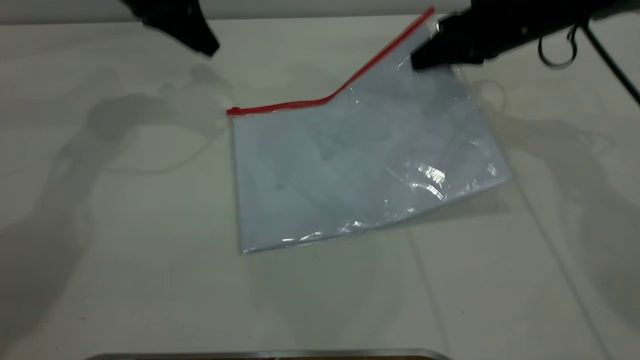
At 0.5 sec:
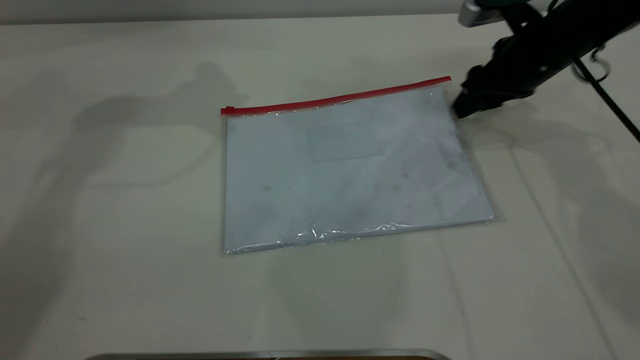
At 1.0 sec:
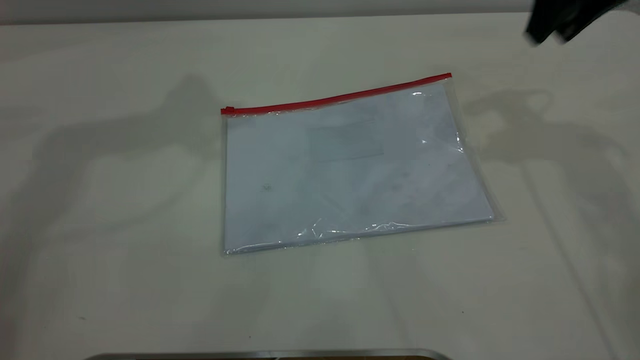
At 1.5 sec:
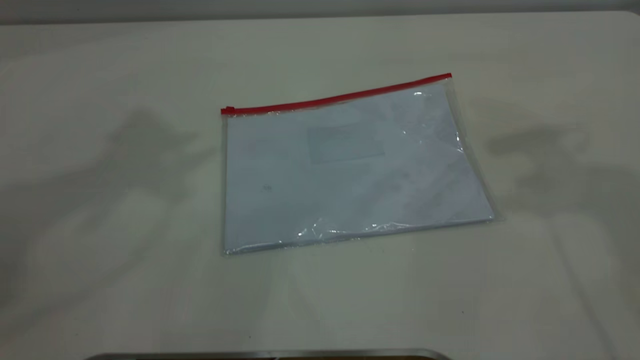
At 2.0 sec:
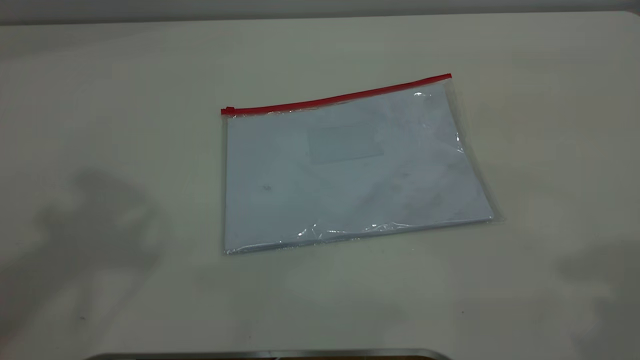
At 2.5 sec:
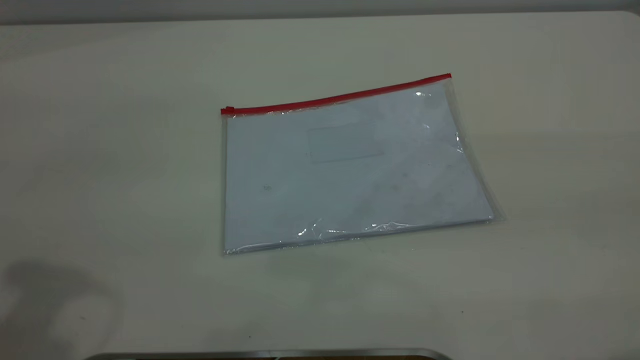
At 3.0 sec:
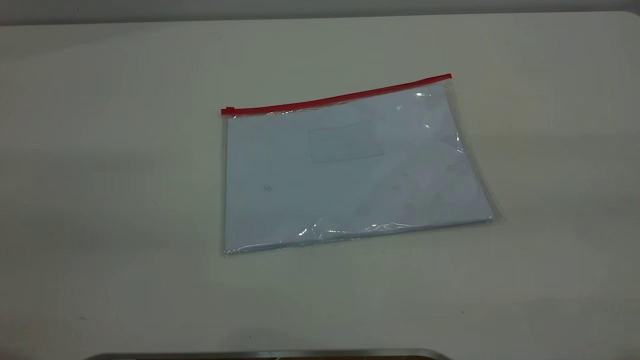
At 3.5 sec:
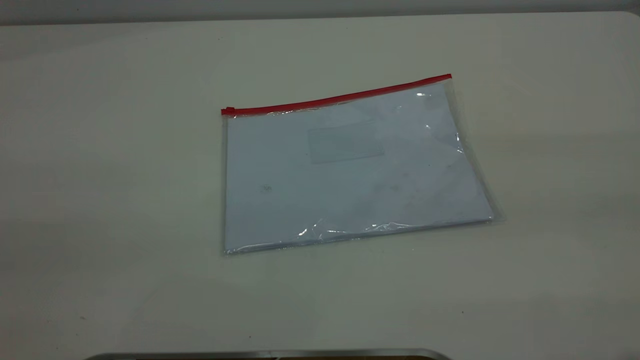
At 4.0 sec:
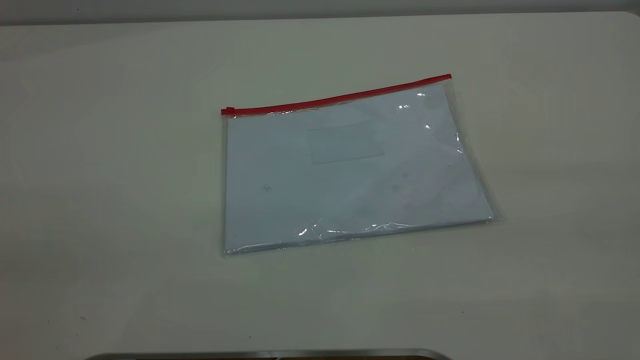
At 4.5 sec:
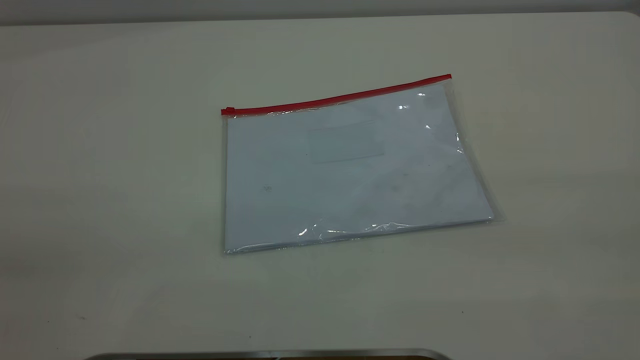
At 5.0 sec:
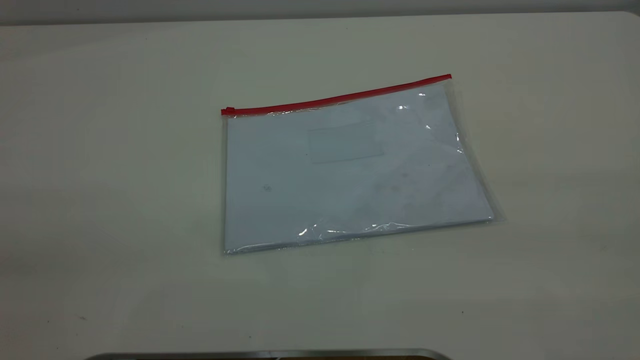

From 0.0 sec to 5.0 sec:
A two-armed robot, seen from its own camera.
Step, from 0.0 sec to 1.0 sec: Place the transparent plastic bag.
From 0.0 sec to 2.5 sec: The two grippers go about 40 cm backward and upward. The right gripper opens.
